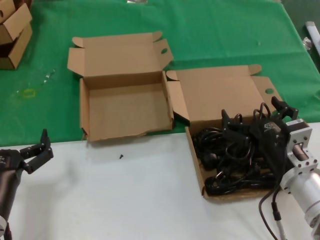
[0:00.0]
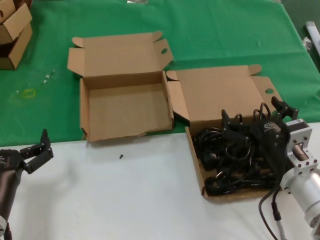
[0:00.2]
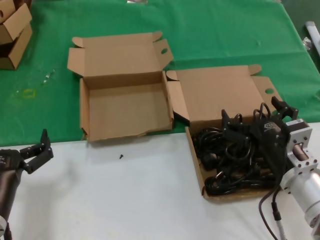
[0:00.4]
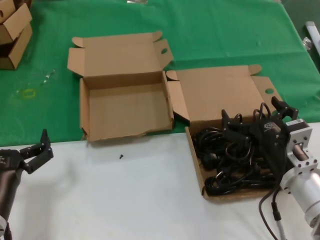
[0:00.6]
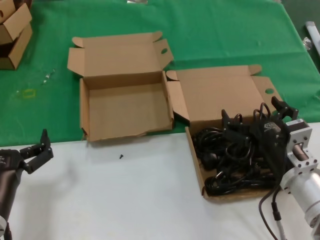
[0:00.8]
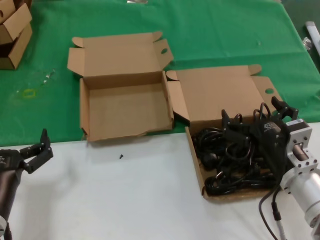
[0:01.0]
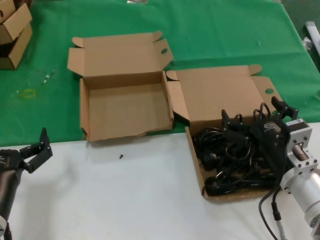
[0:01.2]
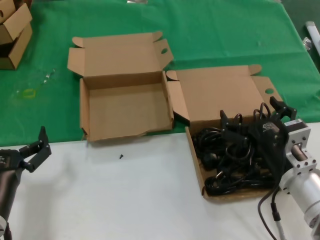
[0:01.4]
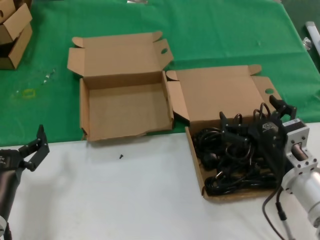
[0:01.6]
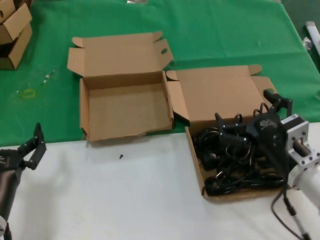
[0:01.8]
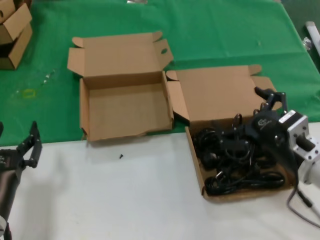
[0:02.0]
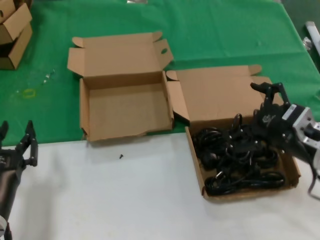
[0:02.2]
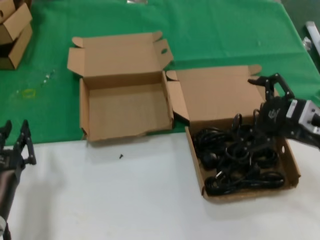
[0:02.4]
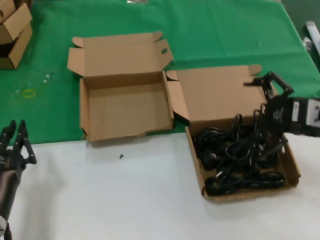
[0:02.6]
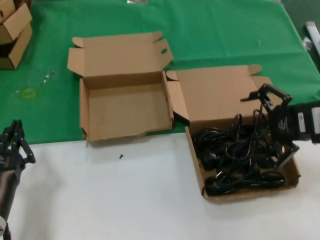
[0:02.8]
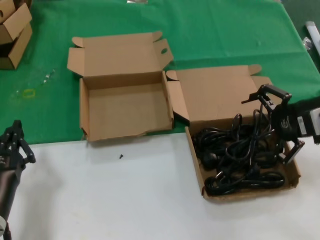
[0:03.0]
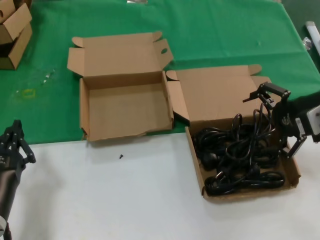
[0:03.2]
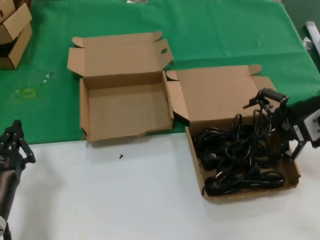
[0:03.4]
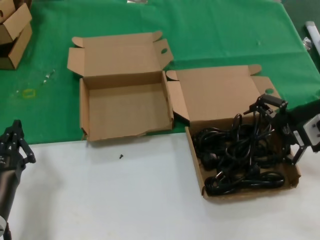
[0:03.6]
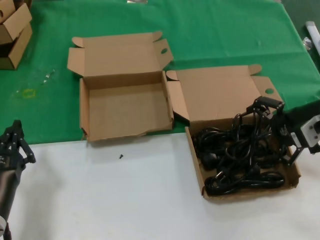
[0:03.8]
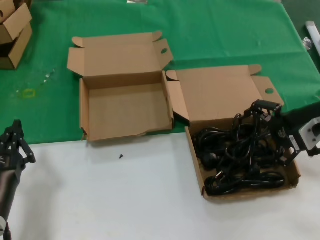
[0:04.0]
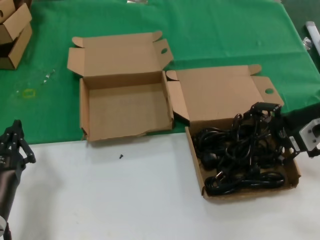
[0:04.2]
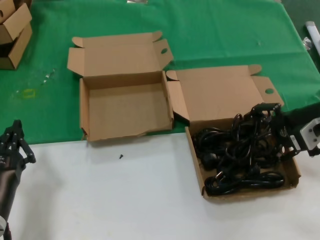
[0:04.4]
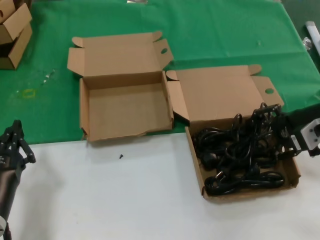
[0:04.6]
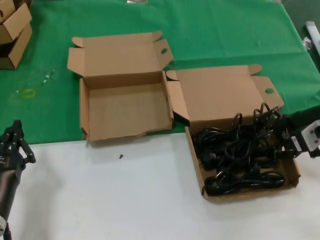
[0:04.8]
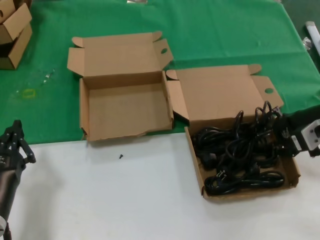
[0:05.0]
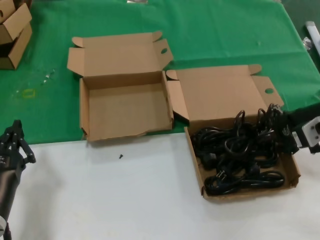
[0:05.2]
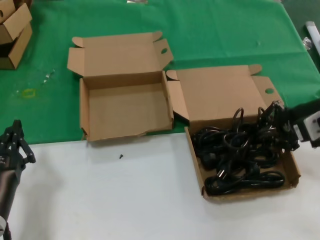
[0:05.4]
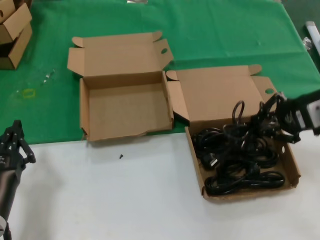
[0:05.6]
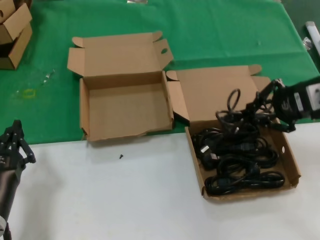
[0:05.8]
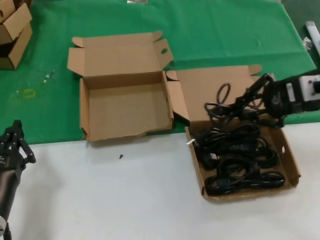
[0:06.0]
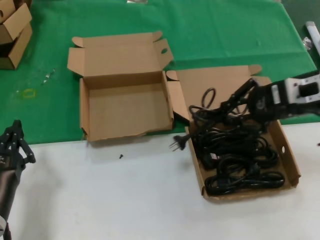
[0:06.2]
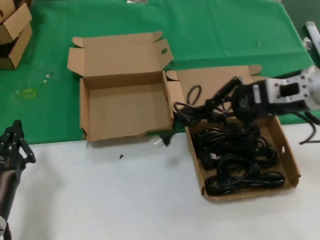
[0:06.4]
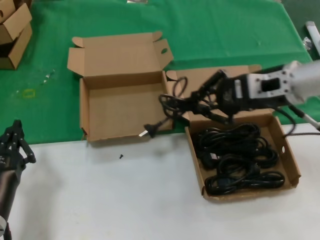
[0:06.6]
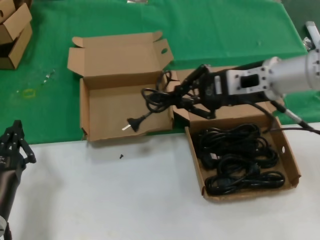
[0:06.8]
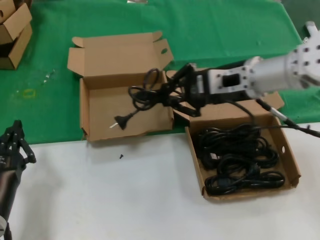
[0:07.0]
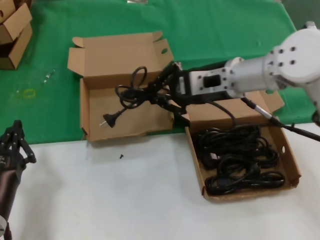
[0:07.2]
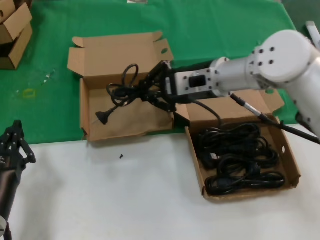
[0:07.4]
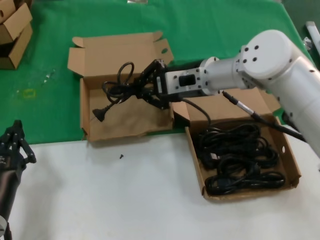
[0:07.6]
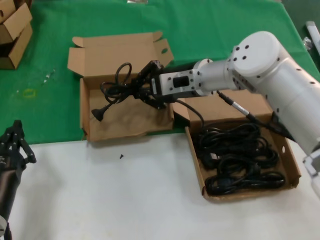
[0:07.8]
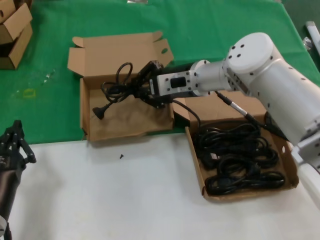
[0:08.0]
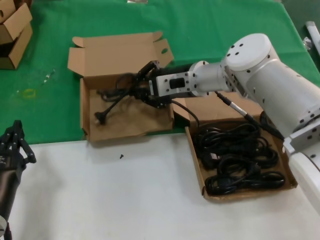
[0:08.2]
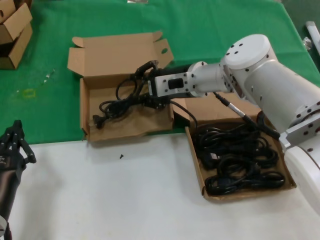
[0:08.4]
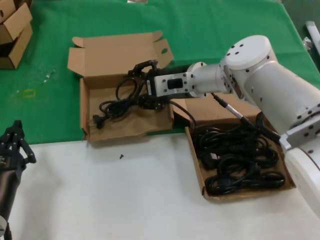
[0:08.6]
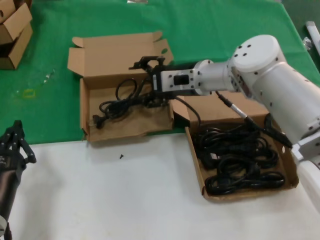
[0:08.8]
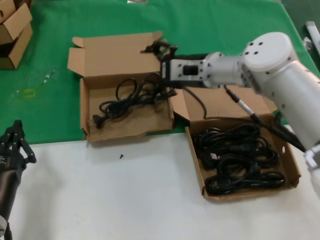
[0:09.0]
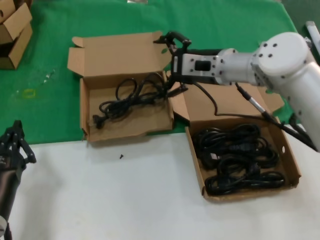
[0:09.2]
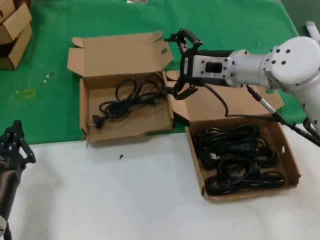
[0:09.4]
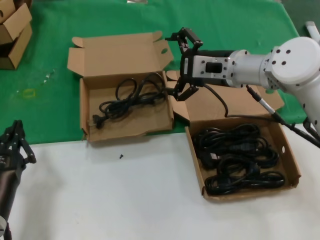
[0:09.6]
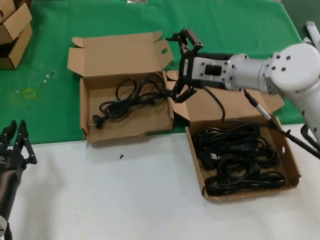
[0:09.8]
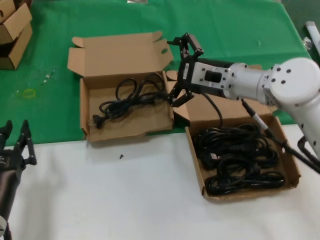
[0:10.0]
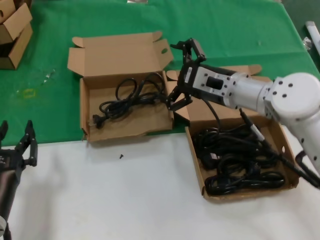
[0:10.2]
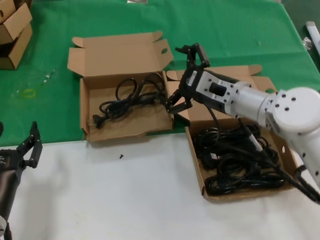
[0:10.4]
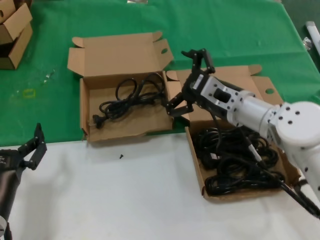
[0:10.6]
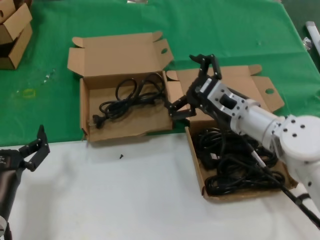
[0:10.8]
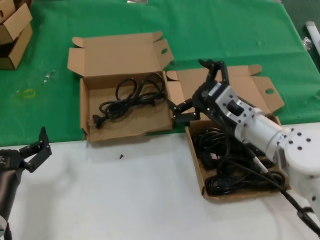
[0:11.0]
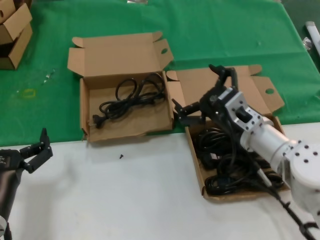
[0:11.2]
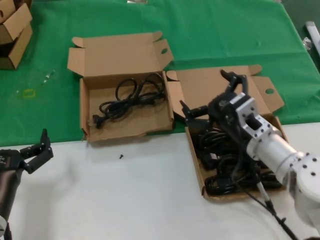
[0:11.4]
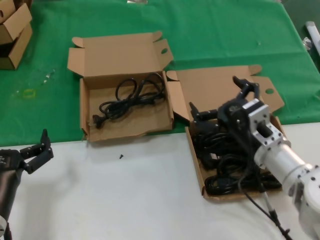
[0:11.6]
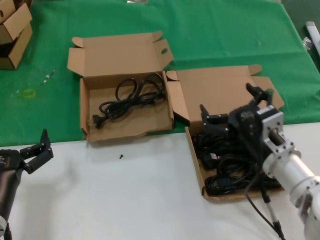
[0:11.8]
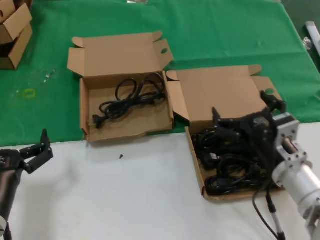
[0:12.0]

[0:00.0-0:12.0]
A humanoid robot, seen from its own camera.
Task of the whole recording: take the parts from the box containing them and put them into an empty box.
Step, 0.0 to 5.2 s: Grasp the data cable.
Step, 5.4 to 8.4 s: Place the data cable in the another box.
0.0 to 1.6 s: The two hands keep their place.
1.6 to 3.0 s: The right hand heads upward, to the right and forward, covering approximately 20 cm.
3.0 to 4.4 s: The hands stay close to where they were, moving slightly.
4.4 to 6.0 s: The right hand moves upward, roughly 5 cm.
6.0 to 7.6 s: The right hand moves to the left and forward, some 20 cm.
7.6 to 9.0 s: The hands move only a little.
9.0 to 10.4 s: The right hand moves backward, about 5 cm.
10.4 to 12.0 s: The right hand moves backward and downward, approximately 15 cm.

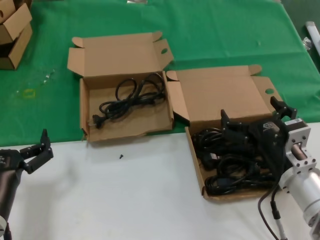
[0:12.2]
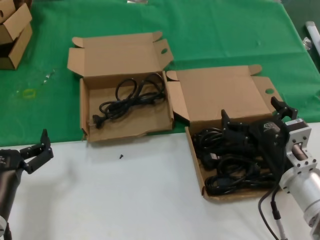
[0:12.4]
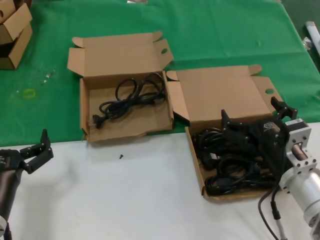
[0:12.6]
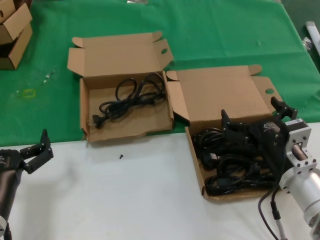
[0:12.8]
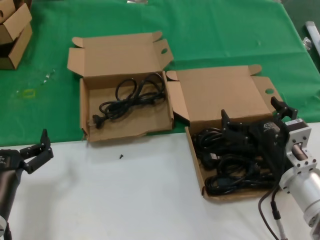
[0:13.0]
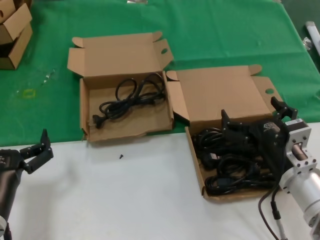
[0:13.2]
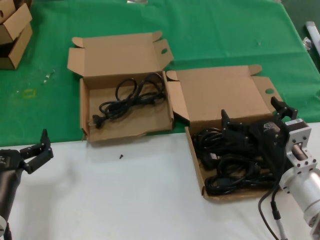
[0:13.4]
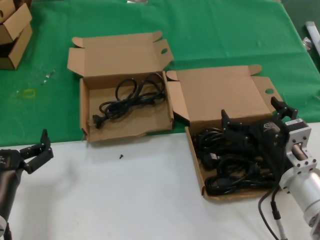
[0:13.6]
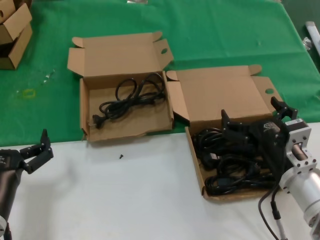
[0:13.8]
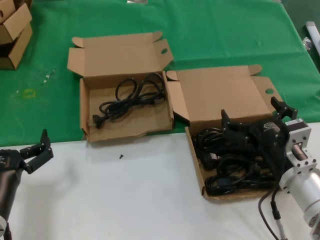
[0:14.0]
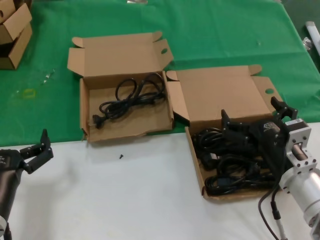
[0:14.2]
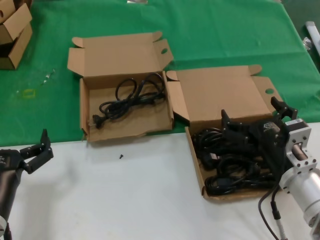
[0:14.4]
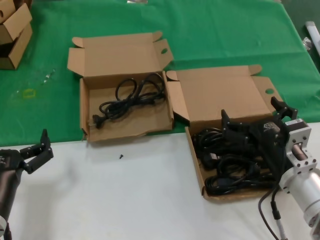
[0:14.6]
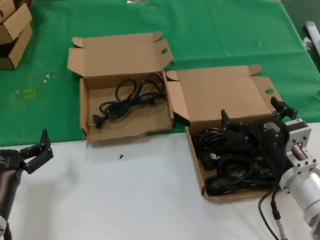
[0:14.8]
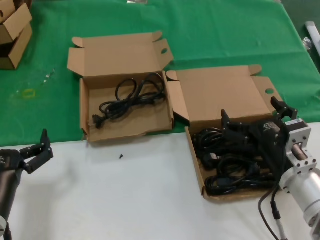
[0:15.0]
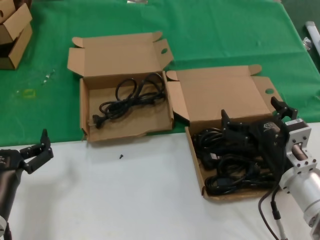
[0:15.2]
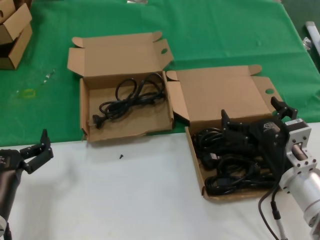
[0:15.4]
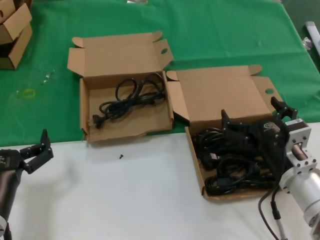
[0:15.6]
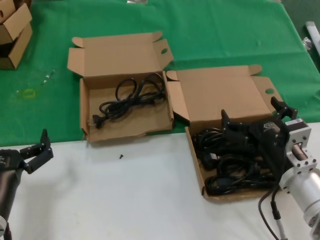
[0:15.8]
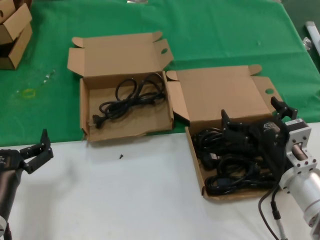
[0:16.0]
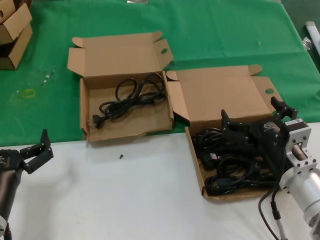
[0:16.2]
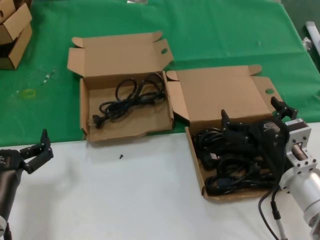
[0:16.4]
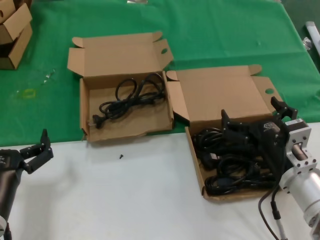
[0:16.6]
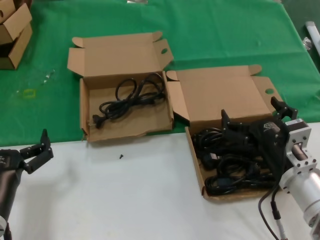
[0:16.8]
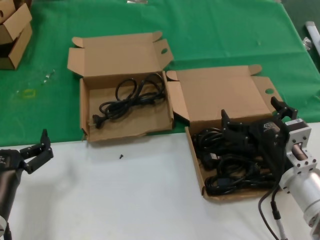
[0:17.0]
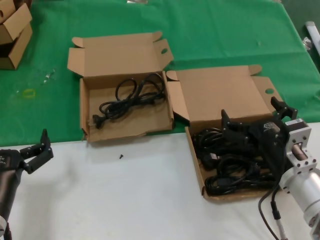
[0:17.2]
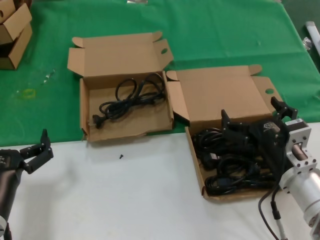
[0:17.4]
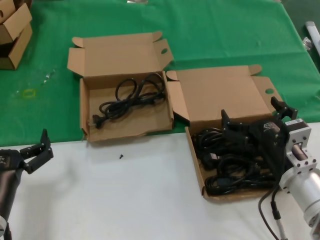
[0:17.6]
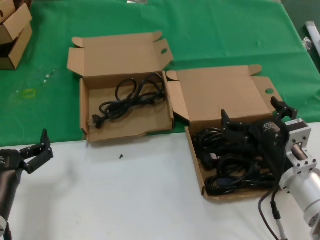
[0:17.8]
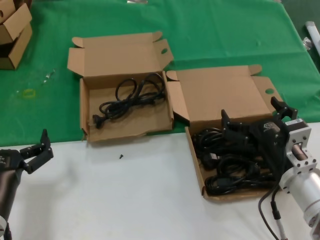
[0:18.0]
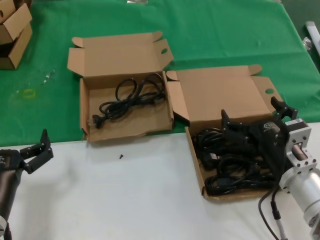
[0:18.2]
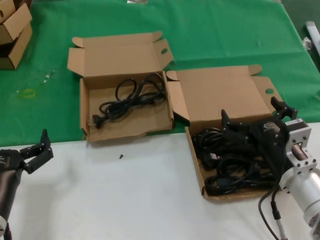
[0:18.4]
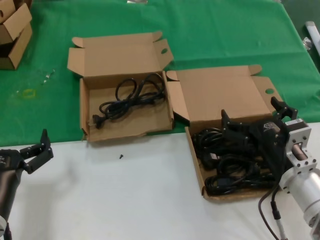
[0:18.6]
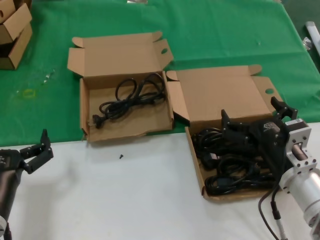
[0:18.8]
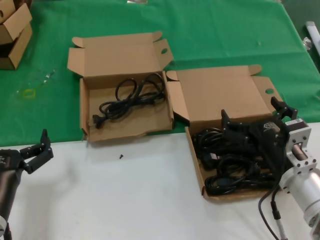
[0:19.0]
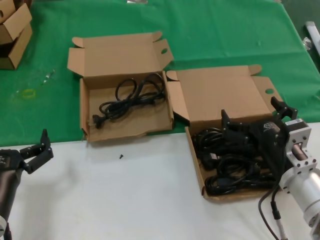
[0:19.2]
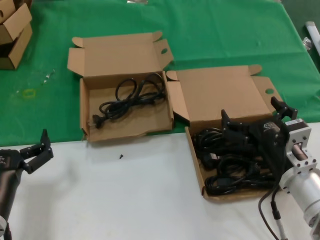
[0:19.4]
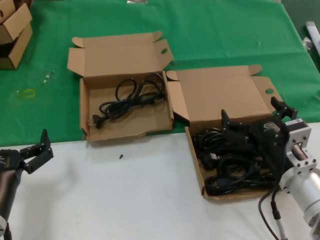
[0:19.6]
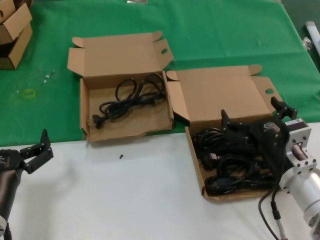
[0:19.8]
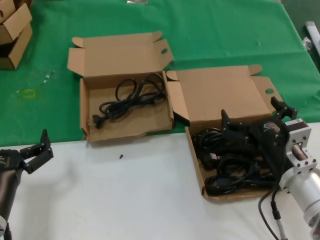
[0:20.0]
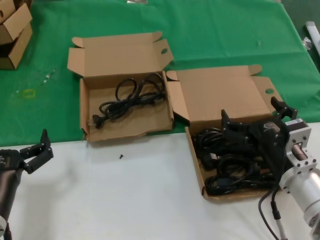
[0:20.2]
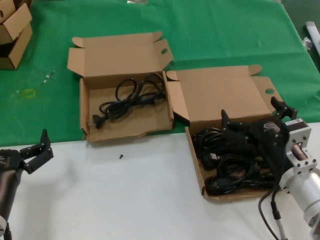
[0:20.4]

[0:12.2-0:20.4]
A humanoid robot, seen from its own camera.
Task of the whole recording: take the parts from the box containing them and put them into an empty box.
12.2 to 20.4 s: Neither hand changes place.

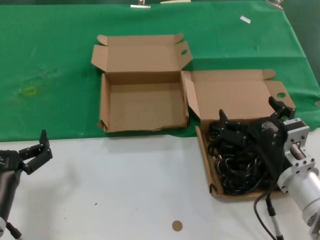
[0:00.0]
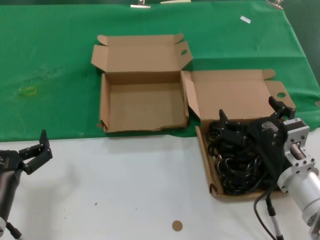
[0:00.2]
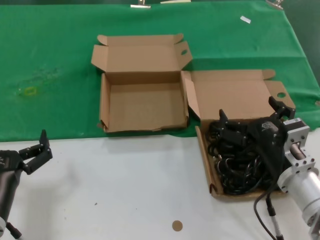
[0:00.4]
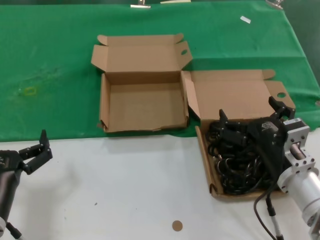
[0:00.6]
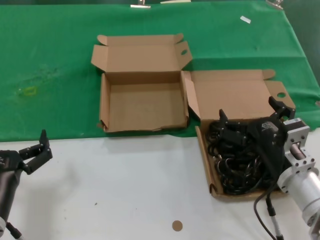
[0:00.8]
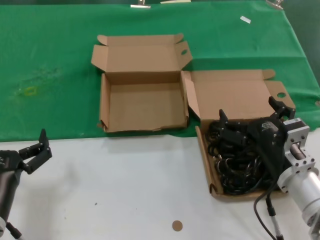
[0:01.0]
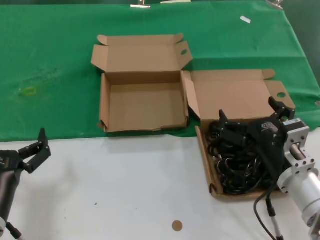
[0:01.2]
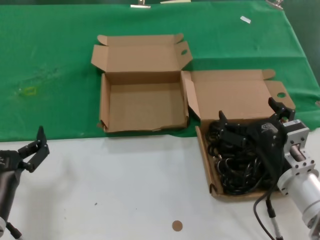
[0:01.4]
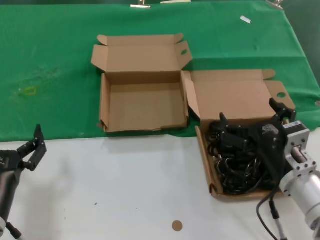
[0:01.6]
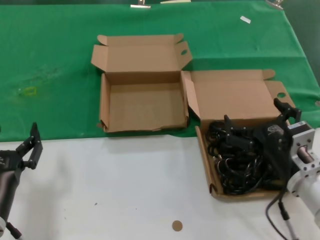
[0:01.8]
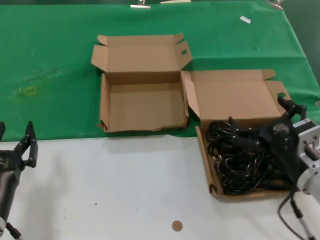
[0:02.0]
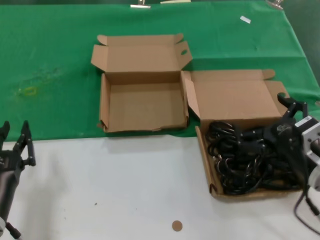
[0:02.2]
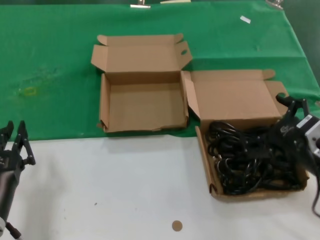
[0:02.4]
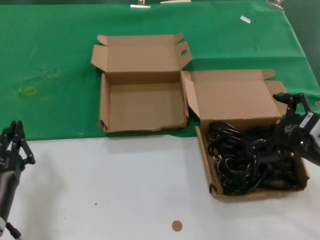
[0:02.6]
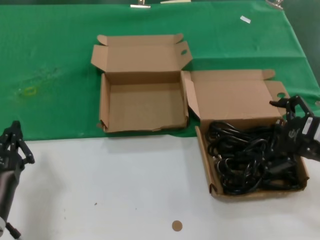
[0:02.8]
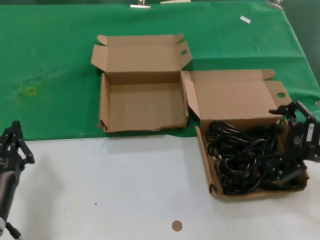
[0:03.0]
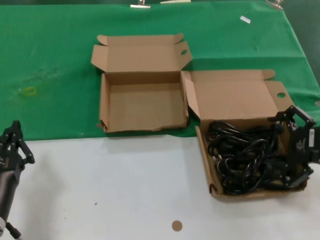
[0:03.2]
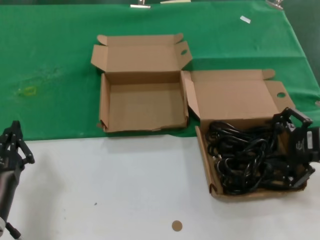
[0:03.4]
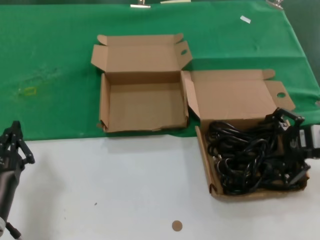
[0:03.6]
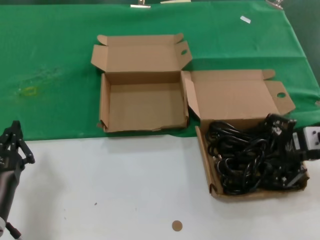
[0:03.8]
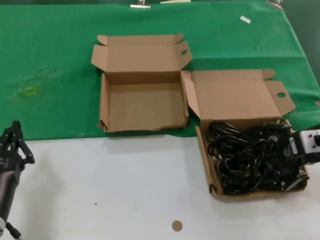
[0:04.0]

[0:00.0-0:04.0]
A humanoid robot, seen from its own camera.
Task of the whole recording: take the parts from the box containing them and put them into an empty box.
0.0 to 1.4 s: Both hands stay about where they are.
1.4 to 2.6 s: The right hand moves to the right and upward, some 10 cm.
2.6 to 4.0 s: The right hand goes roughly 10 cm forward.
